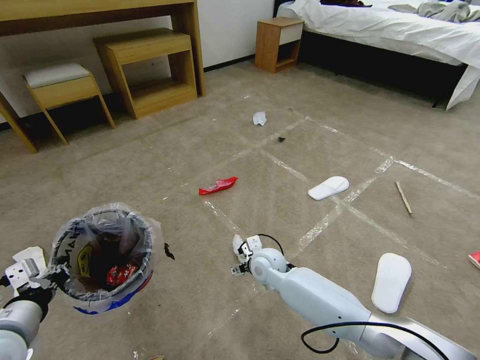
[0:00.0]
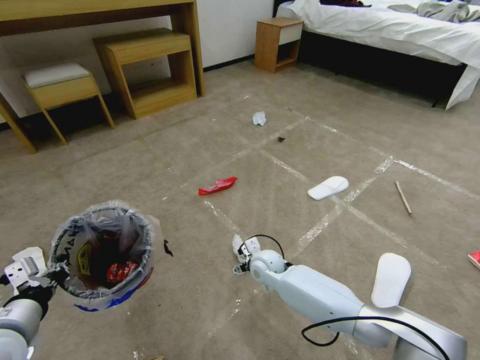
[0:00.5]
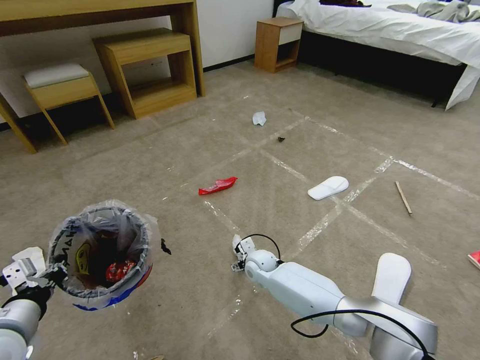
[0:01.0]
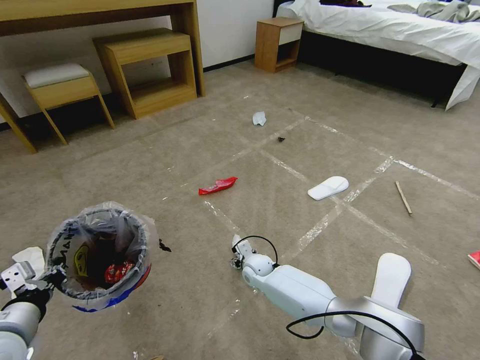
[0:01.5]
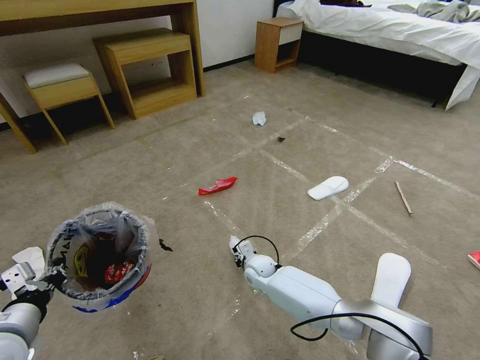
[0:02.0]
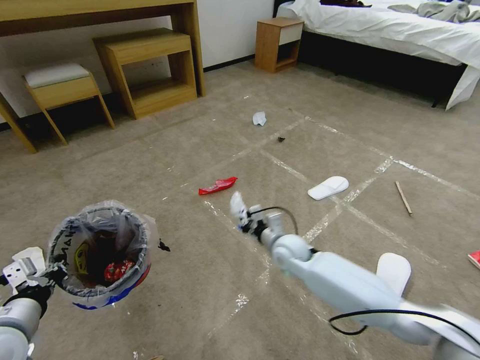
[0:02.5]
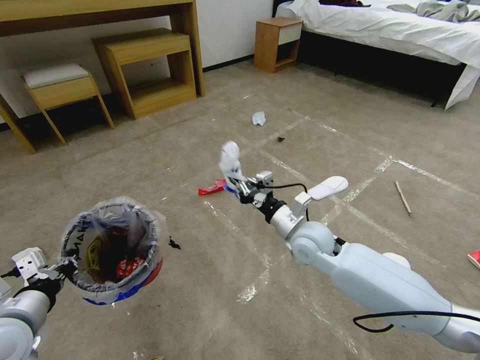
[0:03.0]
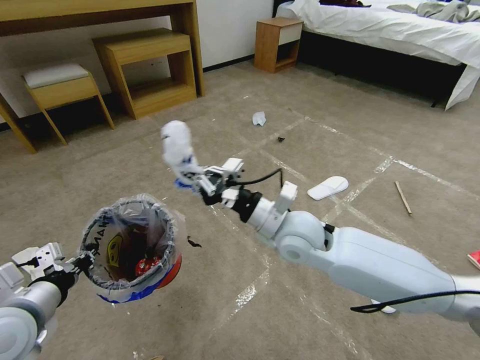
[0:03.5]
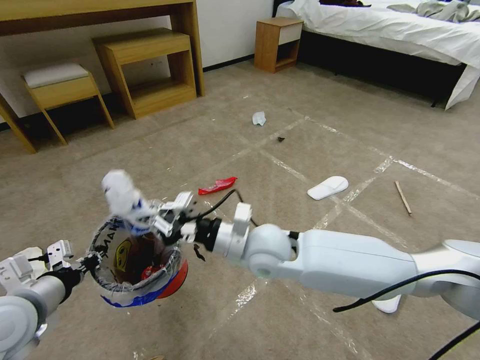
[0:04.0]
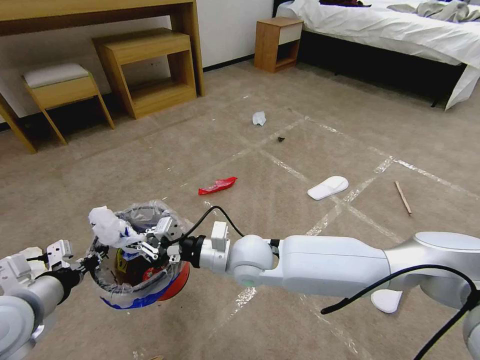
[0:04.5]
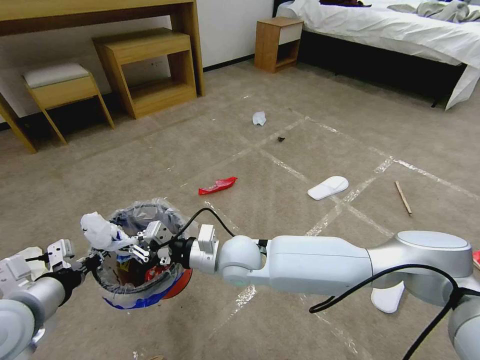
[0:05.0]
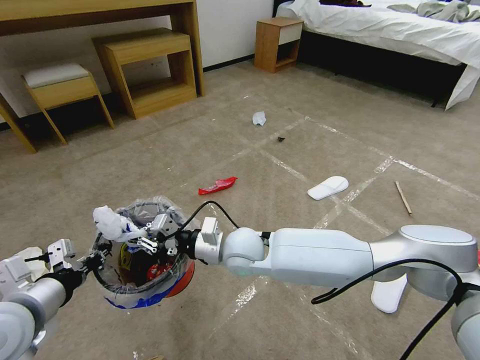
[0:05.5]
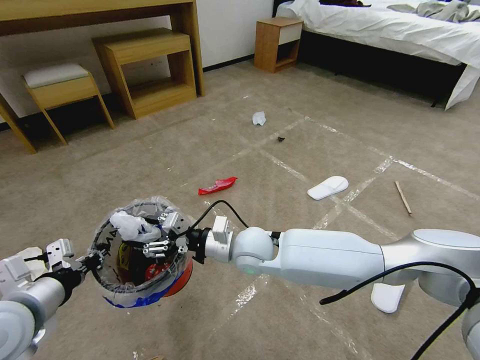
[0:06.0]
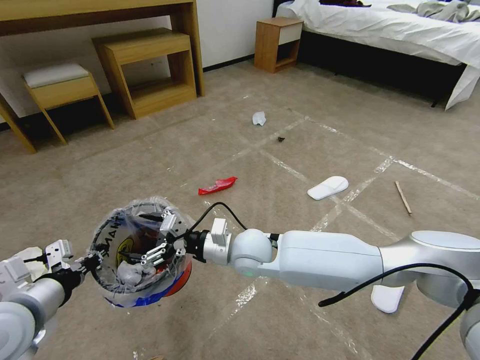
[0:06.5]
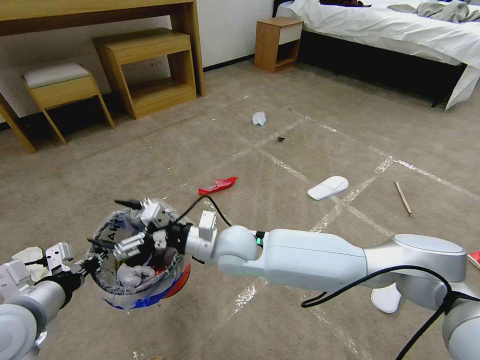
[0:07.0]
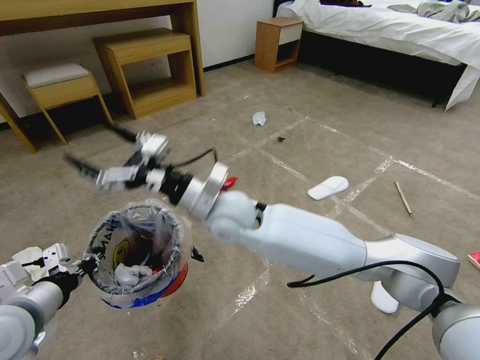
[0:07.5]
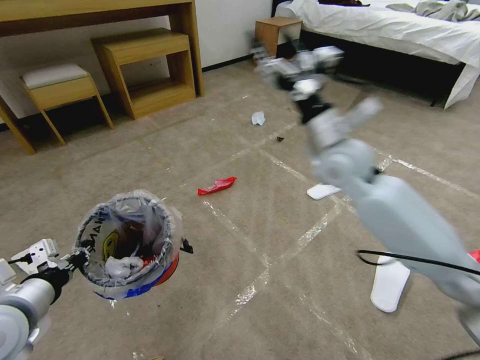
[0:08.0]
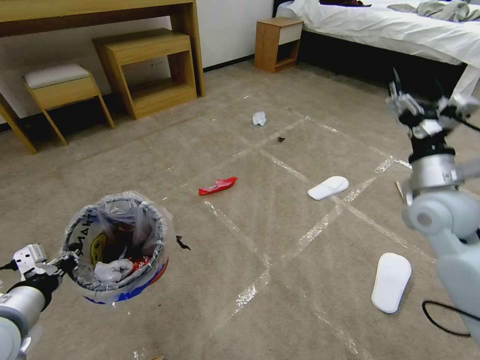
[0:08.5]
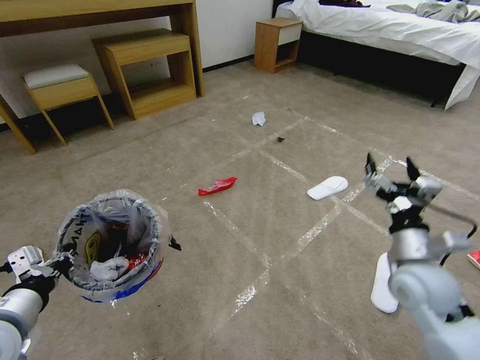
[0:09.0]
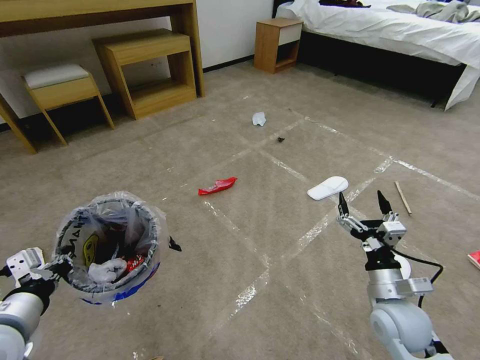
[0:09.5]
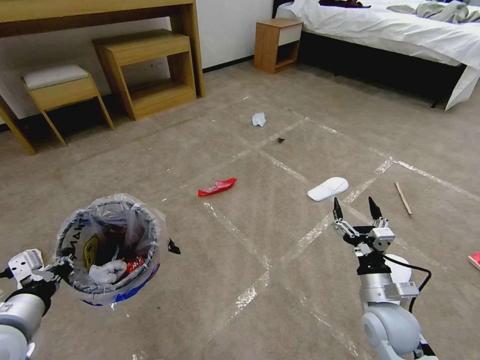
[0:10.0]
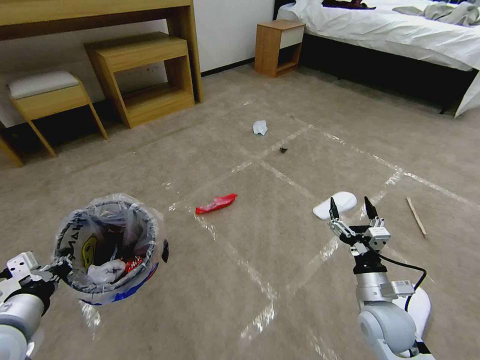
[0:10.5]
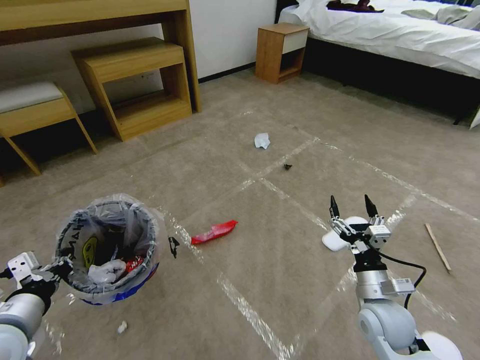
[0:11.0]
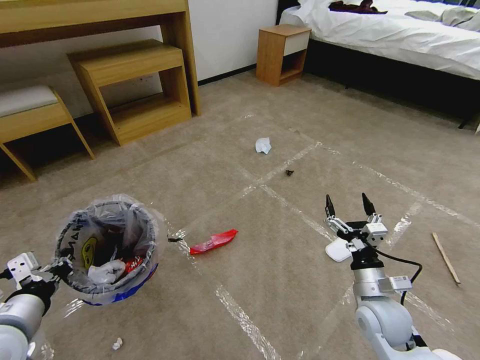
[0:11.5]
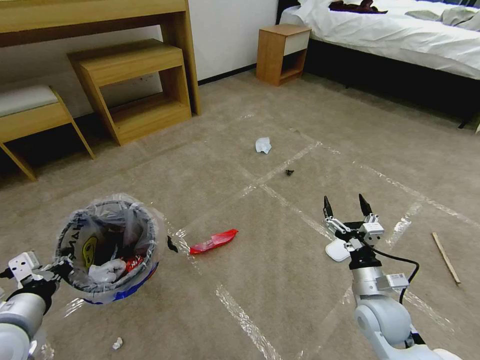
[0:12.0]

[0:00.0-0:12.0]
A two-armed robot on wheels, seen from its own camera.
Task of the whole recording: Pick up the trash bin and place the garbage on the floor into it.
0:00.0 to 0:02.0: The right gripper travels downward by approximately 10 cm, and closes its fingers.
0:02.0 to 0:04.0: The right gripper goes approximately 25 cm upward. The left gripper ends up roughly 5 cm from where it was.
0:04.0 to 0:06.0: The right gripper changes place by some 5 cm, and opens up.
0:06.0 to 0:08.0: The right gripper heads upward, to the right and forward, covering some 25 cm, and opens up.
0:08.0 to 0:10.0: The right gripper heads downward and backward, covering some 35 cm.

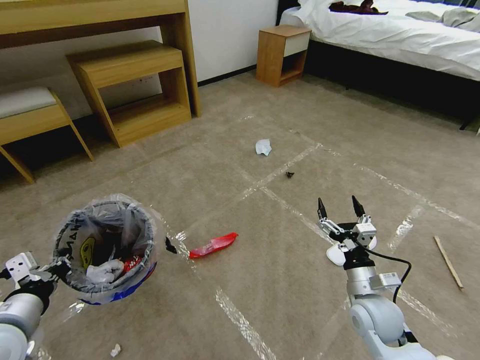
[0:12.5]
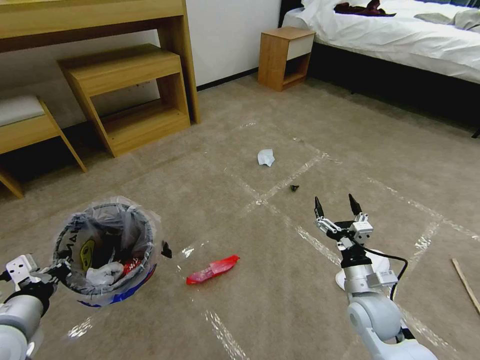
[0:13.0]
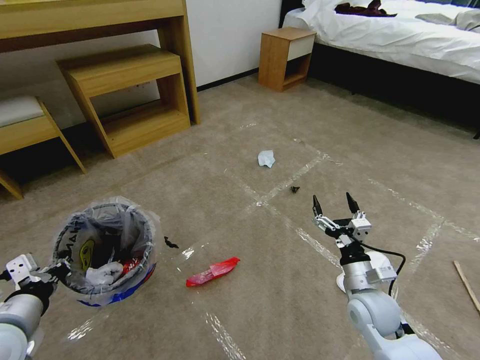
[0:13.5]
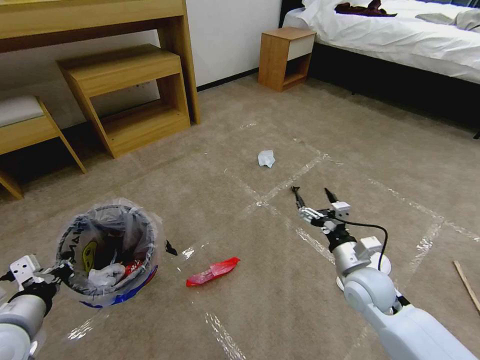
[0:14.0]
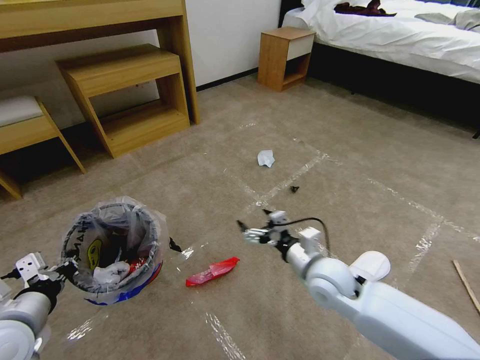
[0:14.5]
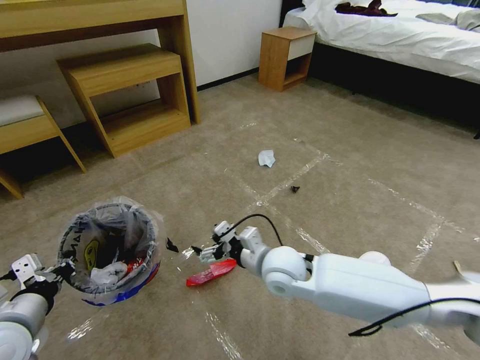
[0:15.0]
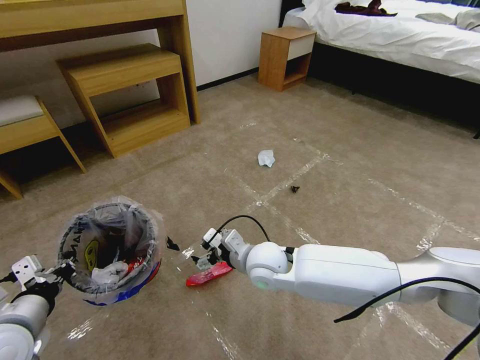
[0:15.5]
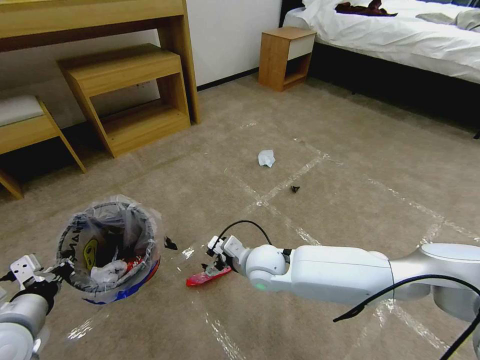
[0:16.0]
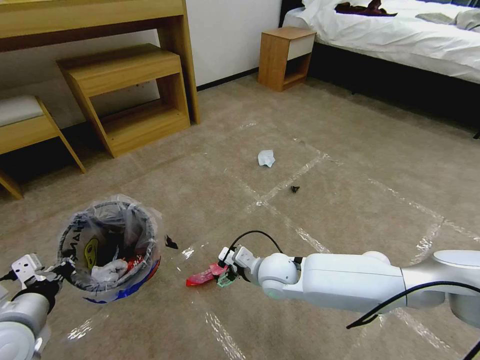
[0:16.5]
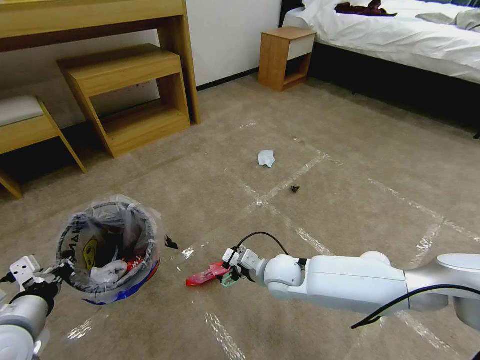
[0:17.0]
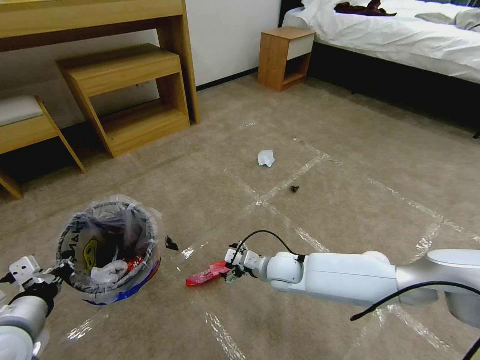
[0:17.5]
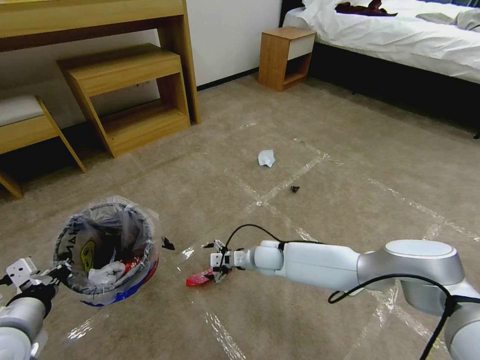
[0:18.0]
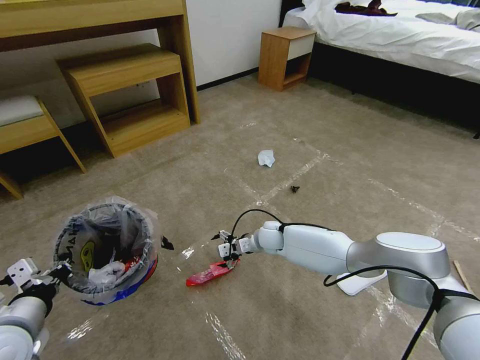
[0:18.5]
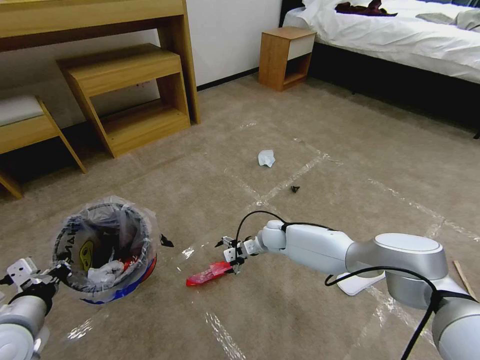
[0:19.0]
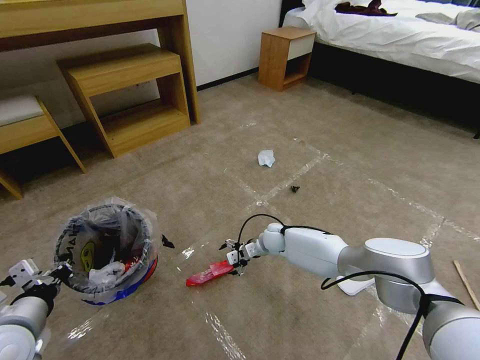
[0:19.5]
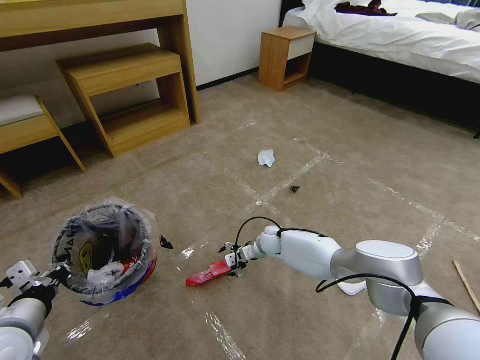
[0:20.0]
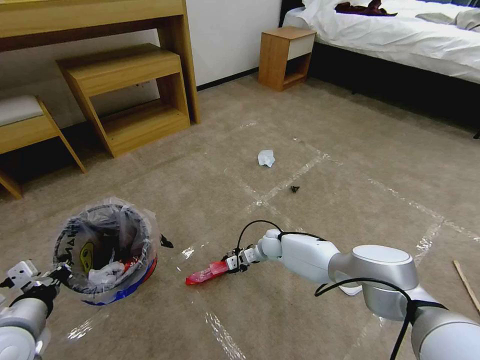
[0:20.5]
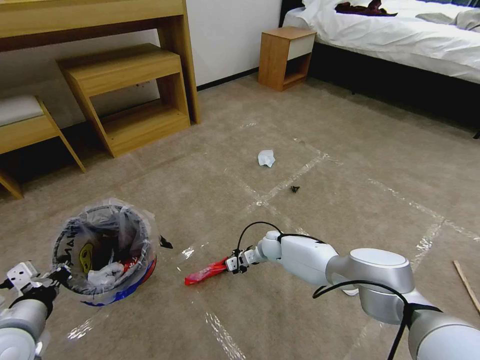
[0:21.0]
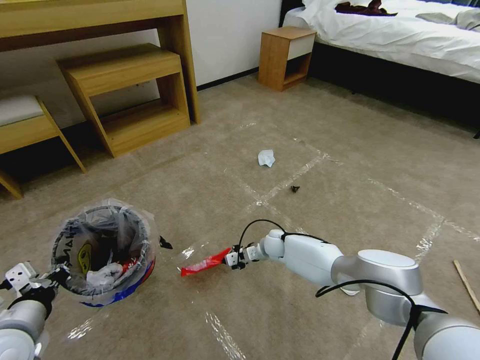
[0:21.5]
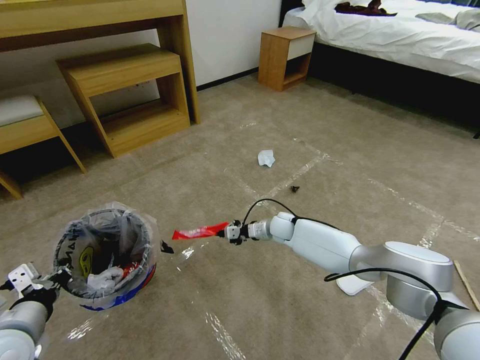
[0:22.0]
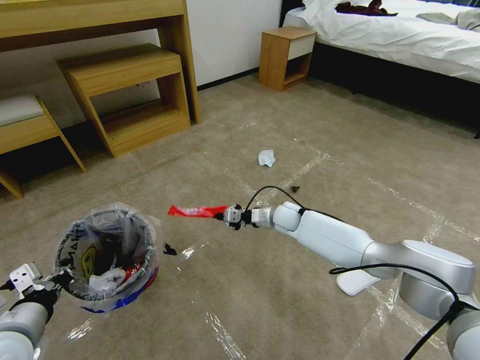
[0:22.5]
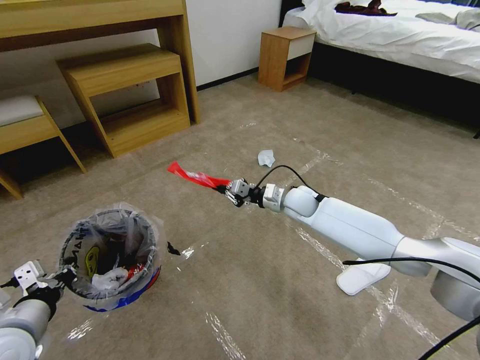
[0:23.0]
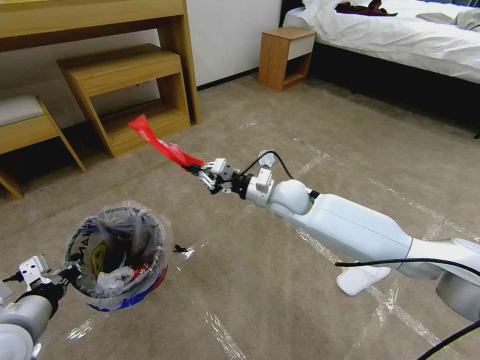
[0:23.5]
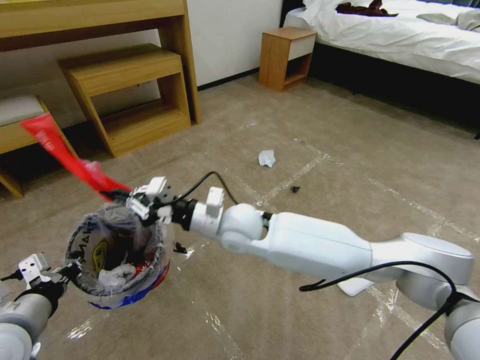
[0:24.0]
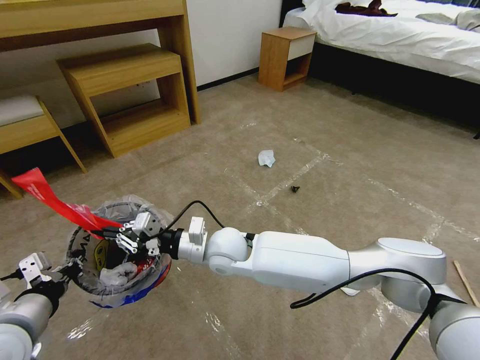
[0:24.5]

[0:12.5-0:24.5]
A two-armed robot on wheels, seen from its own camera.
Task of the whole recording: Pick up the trash bin and place the garbage on the floor into it.
0:12.5 to 0:14.5: The right gripper moves to the left, upward and forward, some 15 cm.
0:14.5 to 0:16.5: The right gripper shifts roughly 10 cm to the left.
0:16.5 to 0:18.5: The right gripper moves forward and downward, approximately 15 cm.
0:18.5 to 0:20.5: The right gripper moves downward, some 5 cm, and closes its fingers.
0:20.5 to 0:22.5: The right gripper travels upward by about 10 cm, and closes.
0:22.5 to 0:24.5: The right gripper shifts some 30 cm to the left, backward and upward.

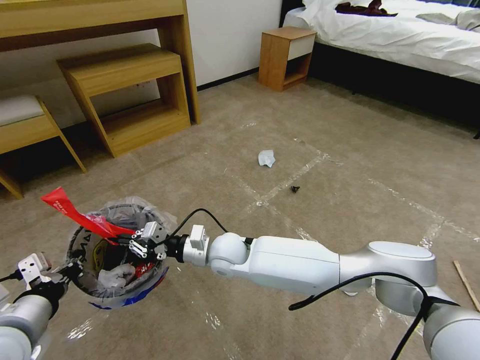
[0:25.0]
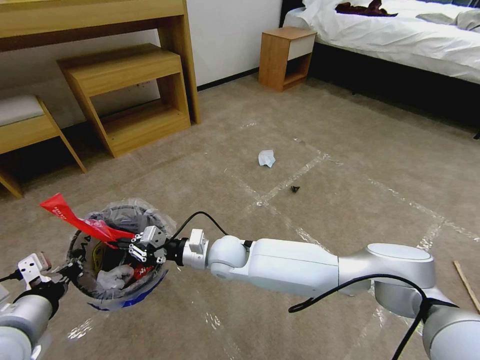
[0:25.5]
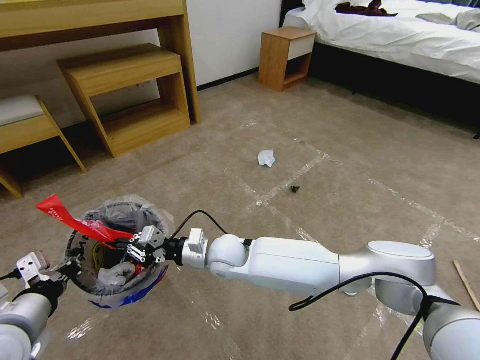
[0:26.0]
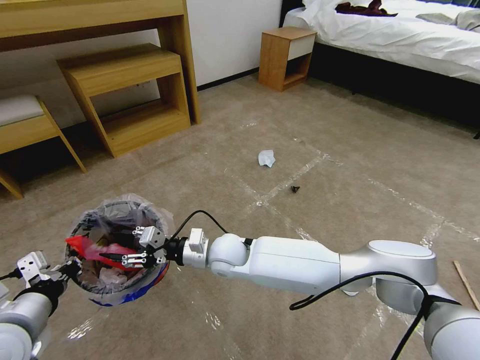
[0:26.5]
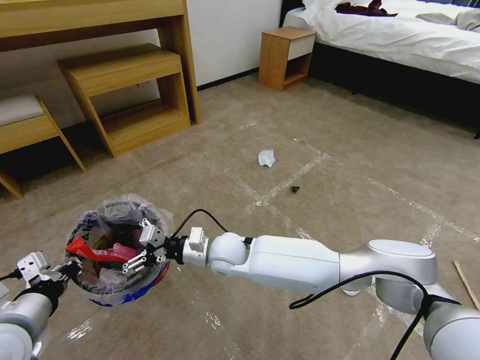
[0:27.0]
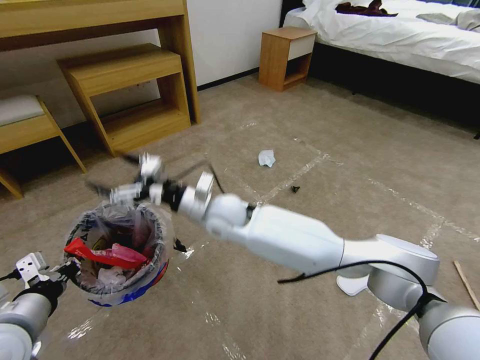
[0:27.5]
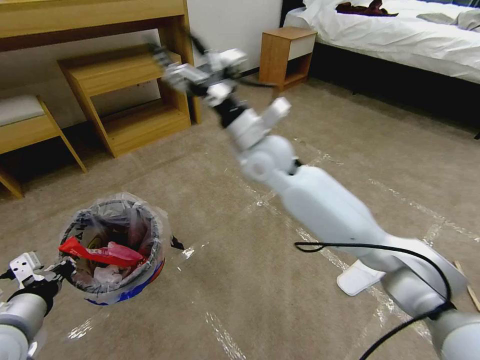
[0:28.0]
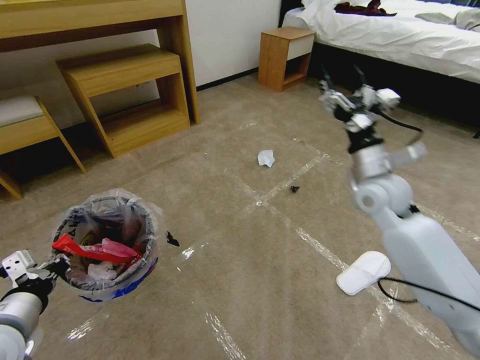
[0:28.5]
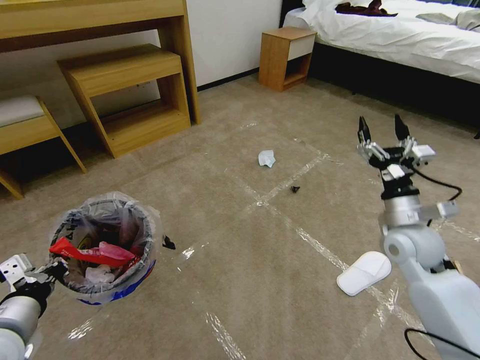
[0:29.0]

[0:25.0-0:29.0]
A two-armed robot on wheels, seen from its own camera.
Task of the whole recording: Pick up the trash bin and place the garbage on the floor into it.
0:25.0 to 0:27.0: The right gripper opens its fingers.
0:27.0 to 0:29.0: The right gripper travels to the right by roughly 40 cm.
